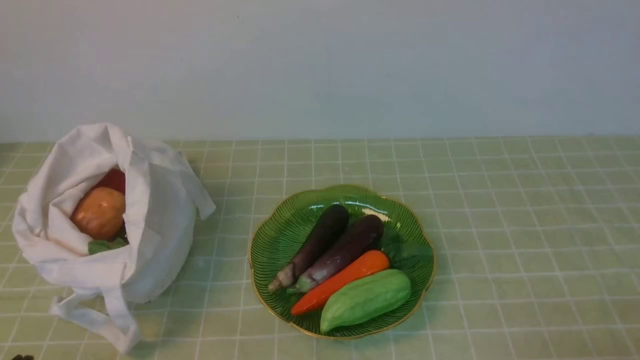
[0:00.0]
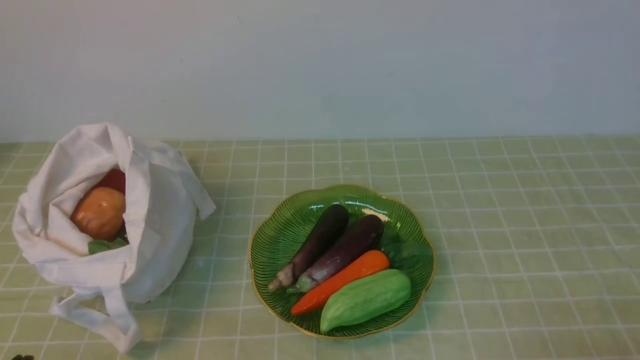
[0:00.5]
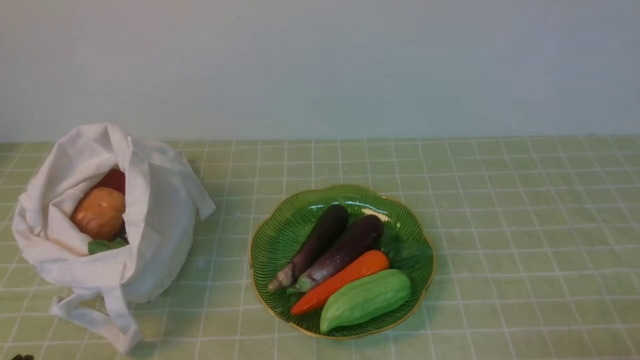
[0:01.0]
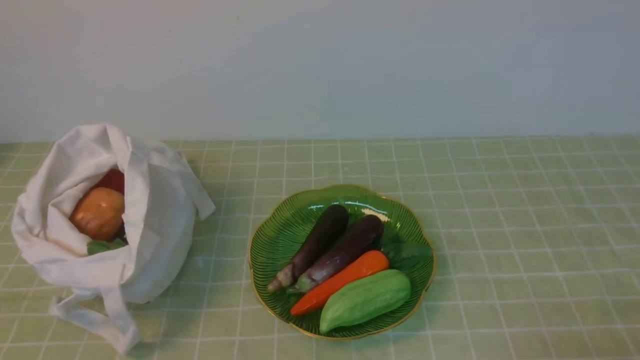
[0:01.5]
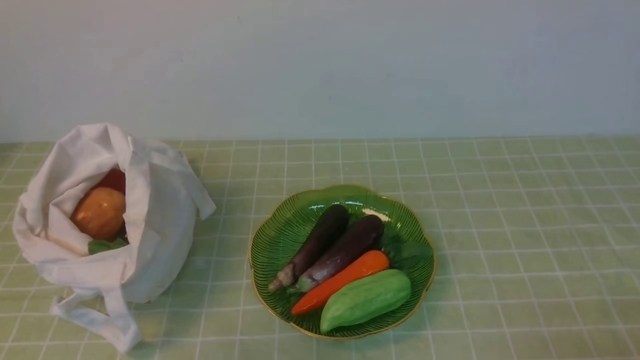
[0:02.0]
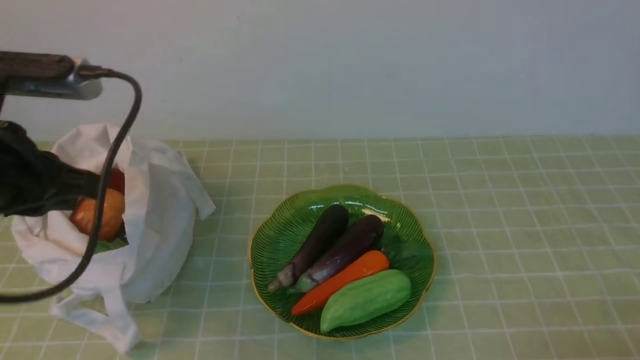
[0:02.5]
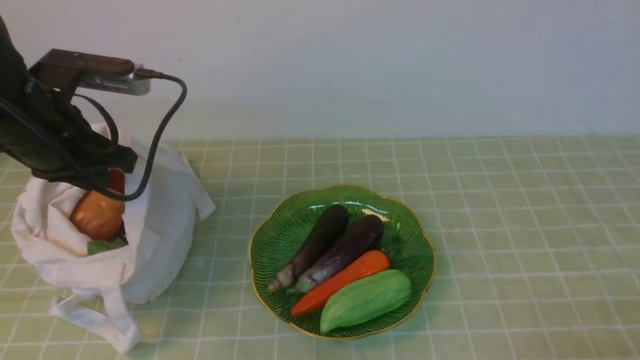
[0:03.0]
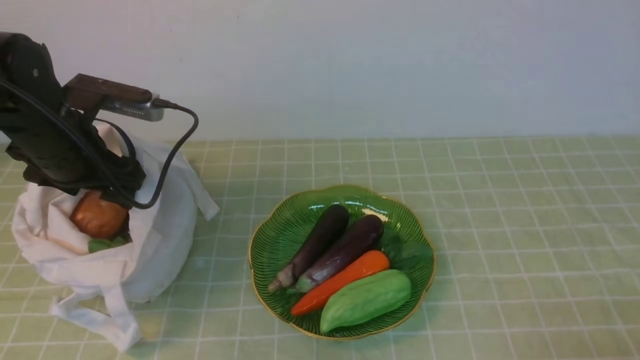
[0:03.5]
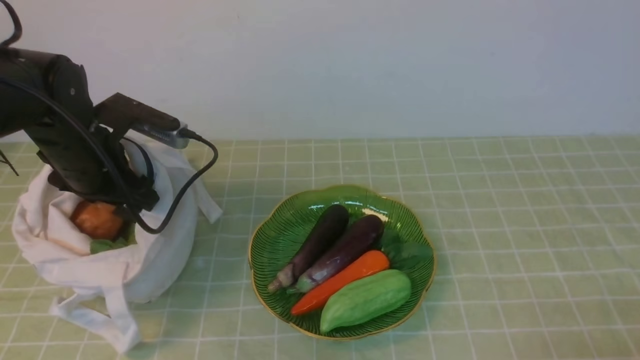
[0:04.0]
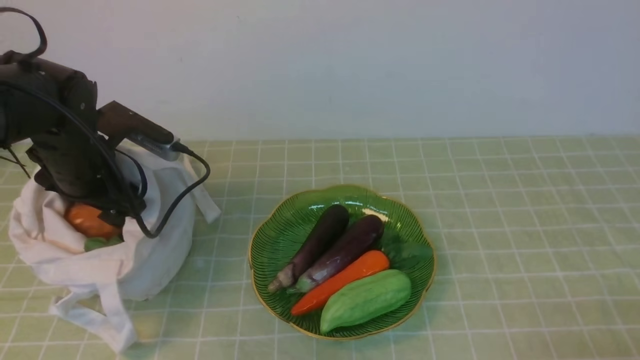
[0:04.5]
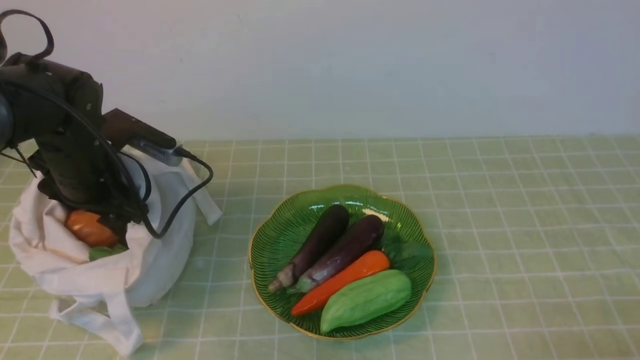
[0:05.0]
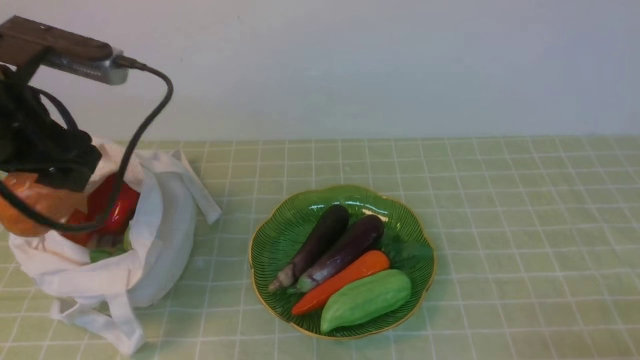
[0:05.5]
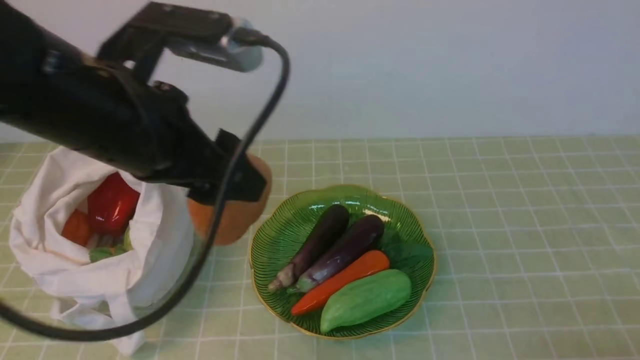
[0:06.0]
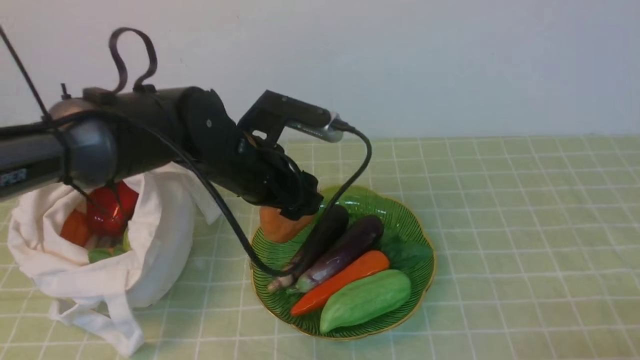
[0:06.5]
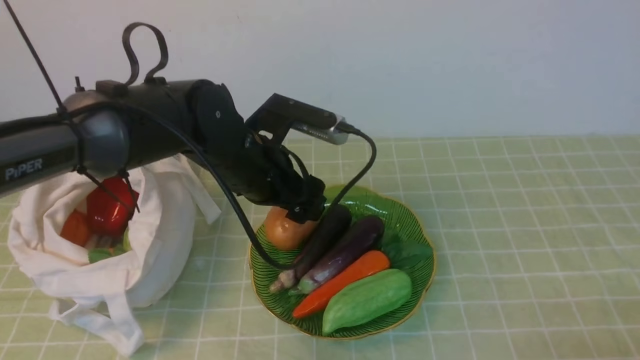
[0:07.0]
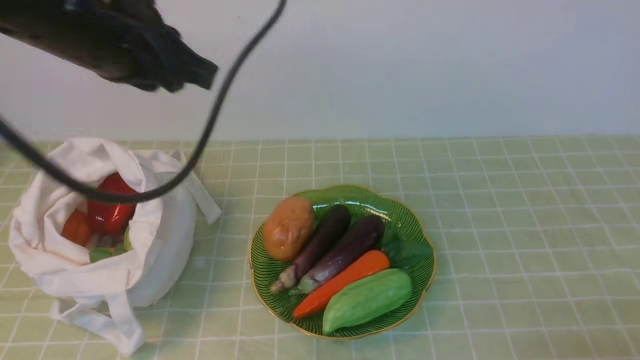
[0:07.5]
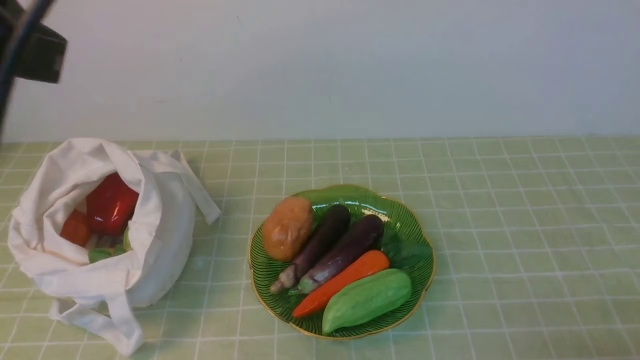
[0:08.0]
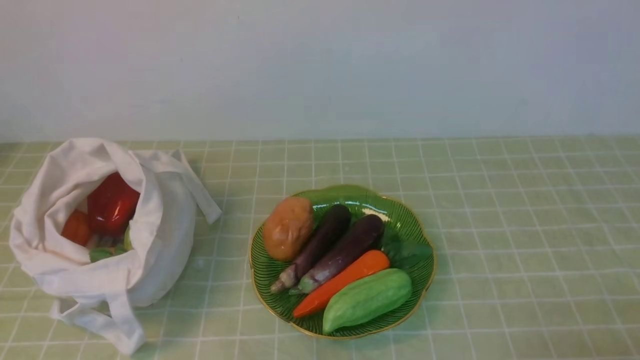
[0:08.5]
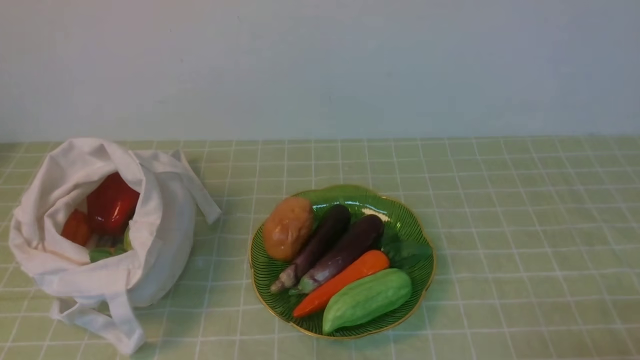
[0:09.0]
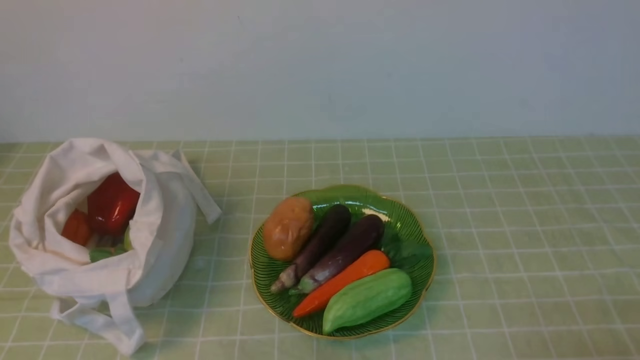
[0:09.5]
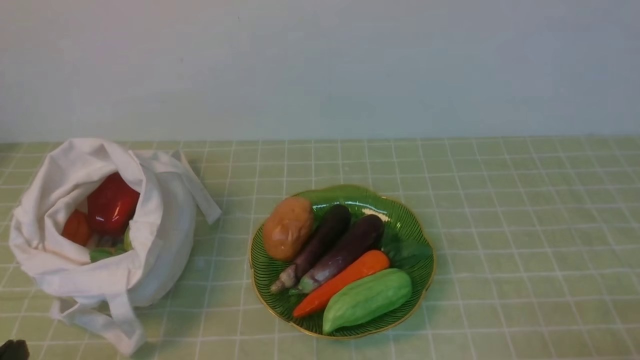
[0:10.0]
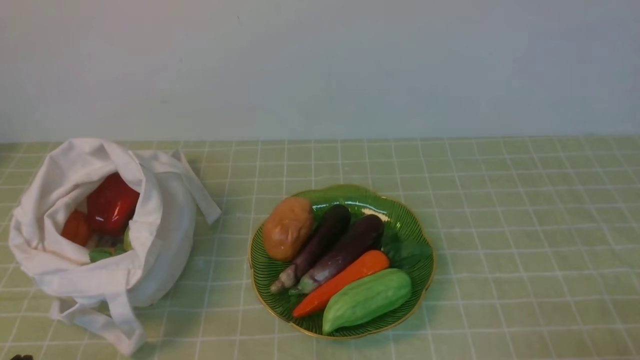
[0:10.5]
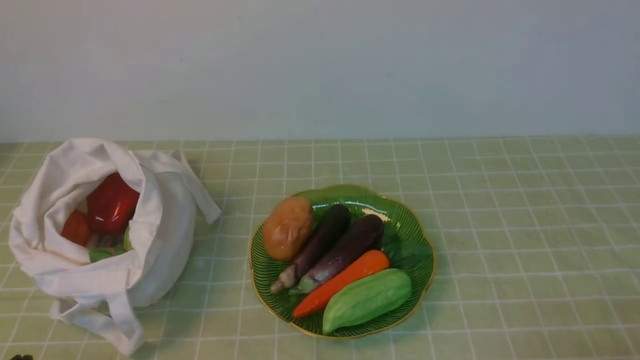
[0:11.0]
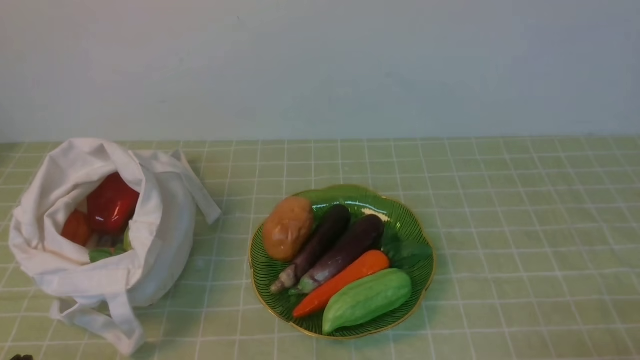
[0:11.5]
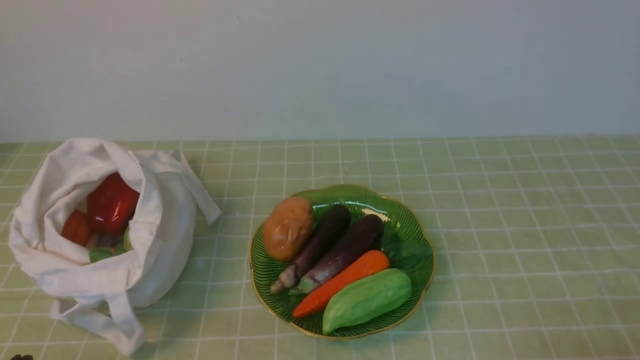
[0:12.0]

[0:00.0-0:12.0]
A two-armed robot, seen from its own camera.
Task of the whole recording: take vegetables from bag on green coffee tablecloth place on plate.
Step, 0:00.0 to 0:04.5: Grasp the potato with left gripper.
Step, 0:05.0 to 0:07.0: Place the potato on the plate with left gripper.
0:02.0 to 0:04.0: The left gripper goes some 30 cm forward, and opens up.
0:04.0 to 0:06.0: The left gripper travels upward, backward and to the right by some 20 cm.
0:06.0 to 0:08.0: The left gripper goes about 10 cm upward and backward, and closes its fingers.
0:08.0 to 0:10.0: The left gripper shifts about 30 cm downward and backward.
